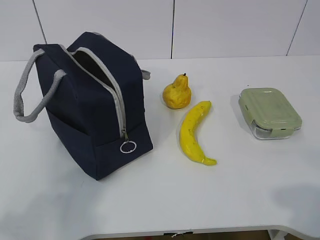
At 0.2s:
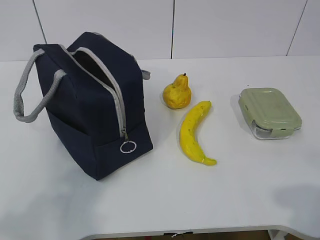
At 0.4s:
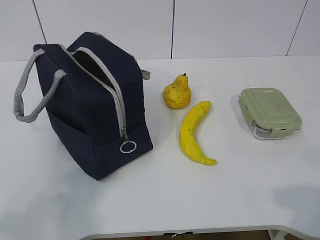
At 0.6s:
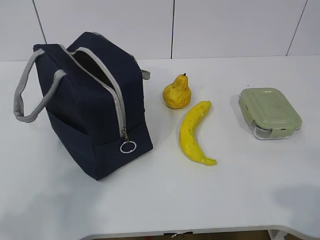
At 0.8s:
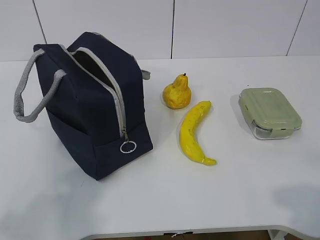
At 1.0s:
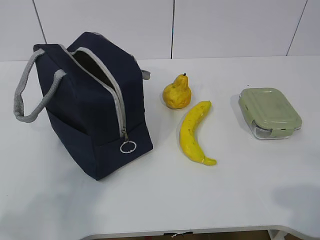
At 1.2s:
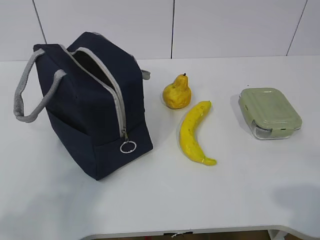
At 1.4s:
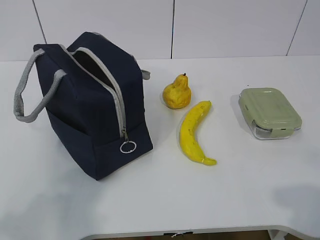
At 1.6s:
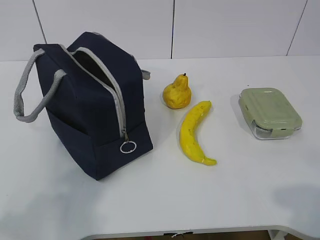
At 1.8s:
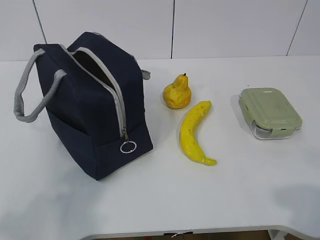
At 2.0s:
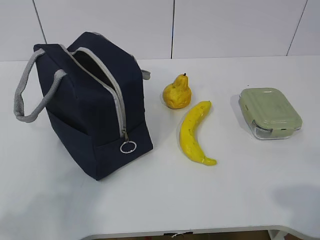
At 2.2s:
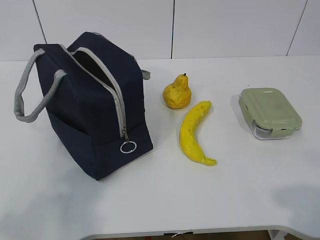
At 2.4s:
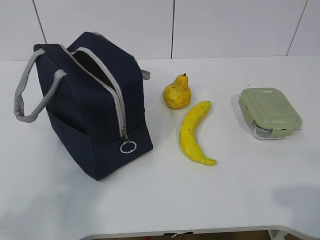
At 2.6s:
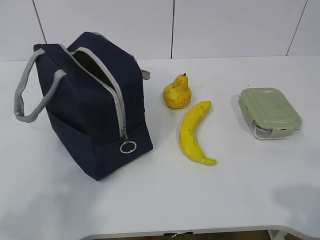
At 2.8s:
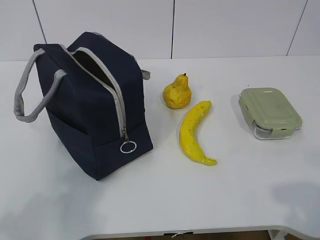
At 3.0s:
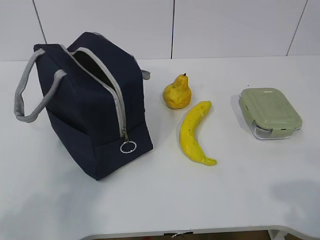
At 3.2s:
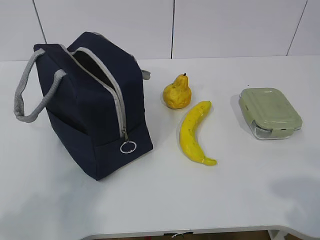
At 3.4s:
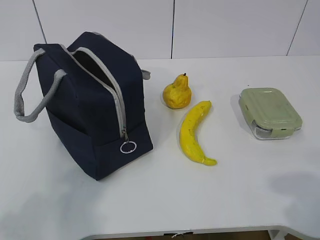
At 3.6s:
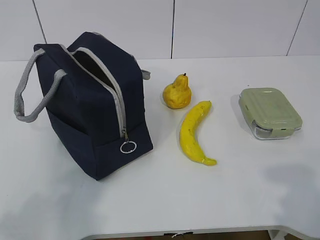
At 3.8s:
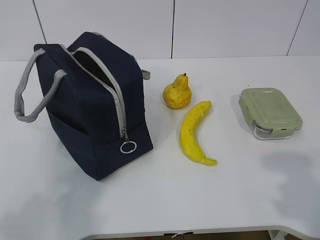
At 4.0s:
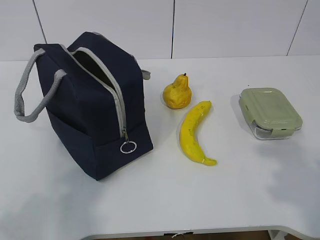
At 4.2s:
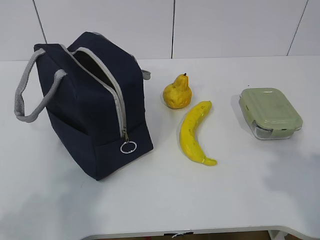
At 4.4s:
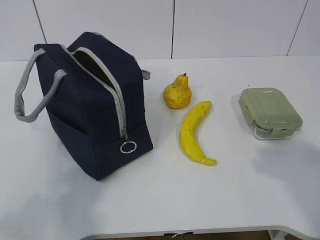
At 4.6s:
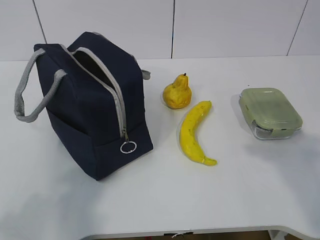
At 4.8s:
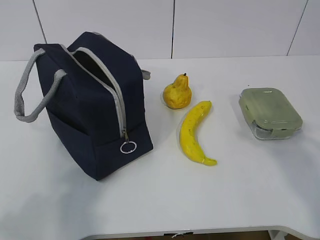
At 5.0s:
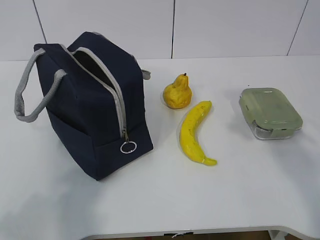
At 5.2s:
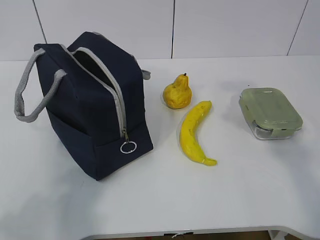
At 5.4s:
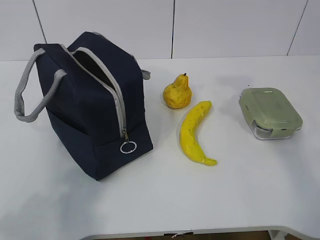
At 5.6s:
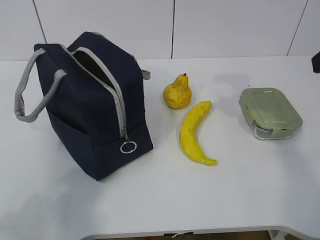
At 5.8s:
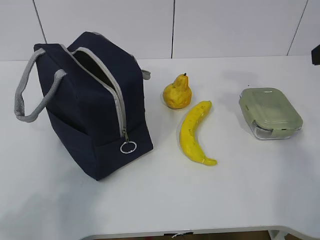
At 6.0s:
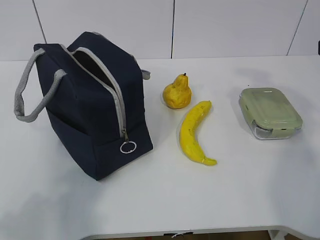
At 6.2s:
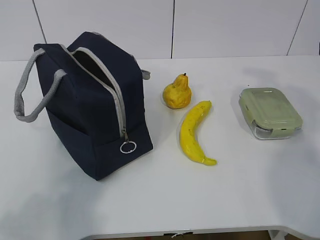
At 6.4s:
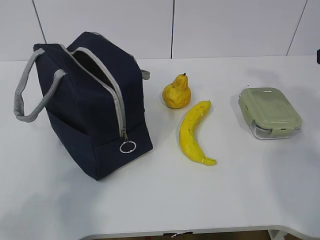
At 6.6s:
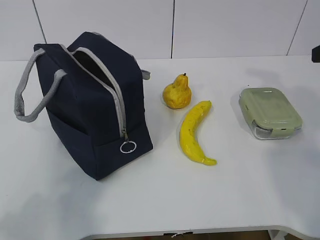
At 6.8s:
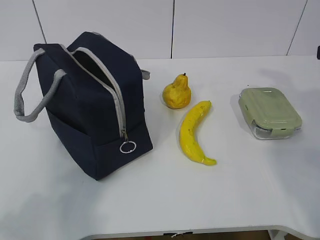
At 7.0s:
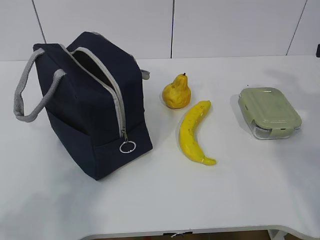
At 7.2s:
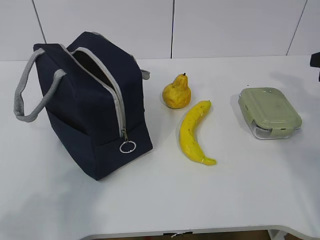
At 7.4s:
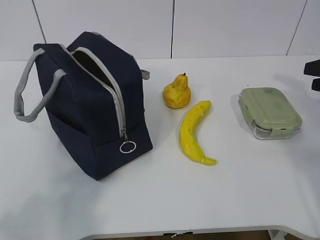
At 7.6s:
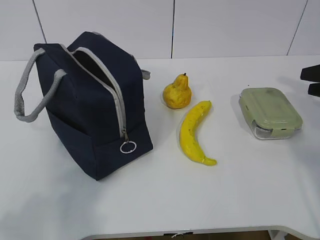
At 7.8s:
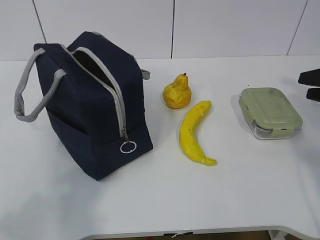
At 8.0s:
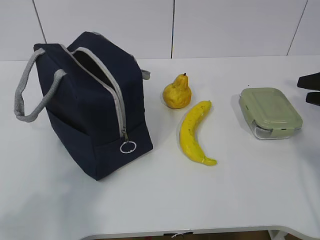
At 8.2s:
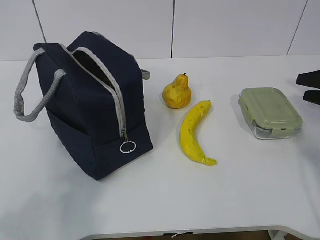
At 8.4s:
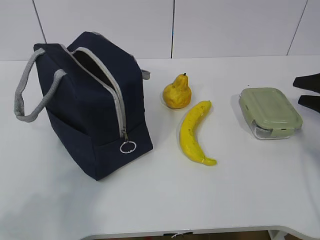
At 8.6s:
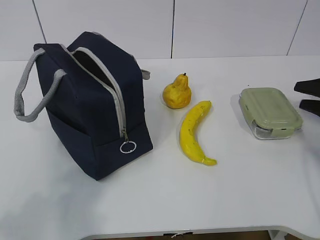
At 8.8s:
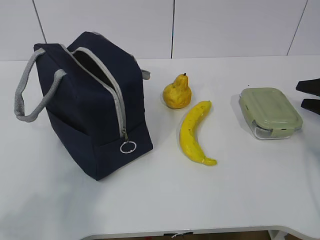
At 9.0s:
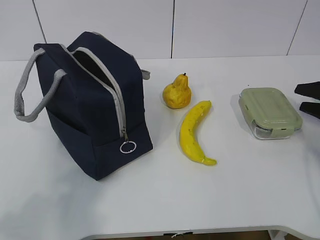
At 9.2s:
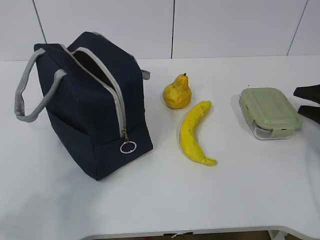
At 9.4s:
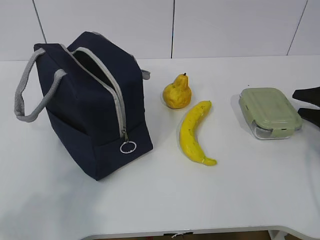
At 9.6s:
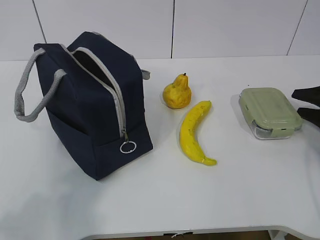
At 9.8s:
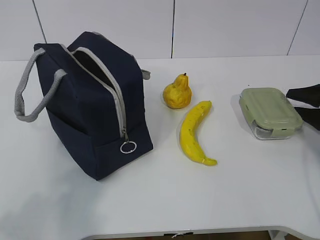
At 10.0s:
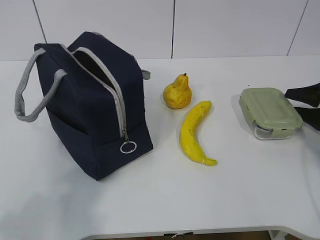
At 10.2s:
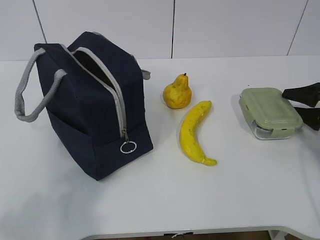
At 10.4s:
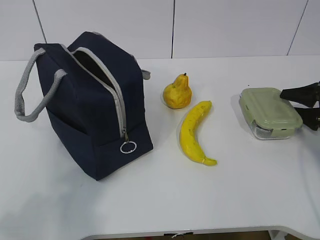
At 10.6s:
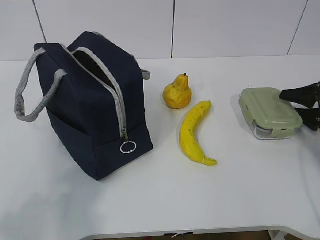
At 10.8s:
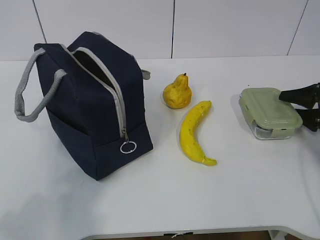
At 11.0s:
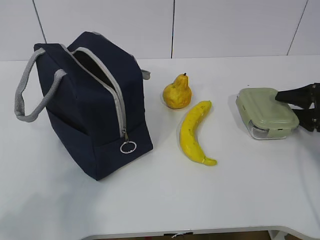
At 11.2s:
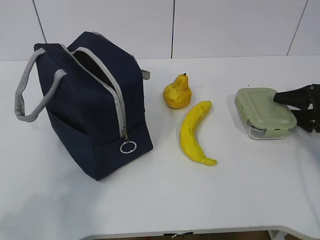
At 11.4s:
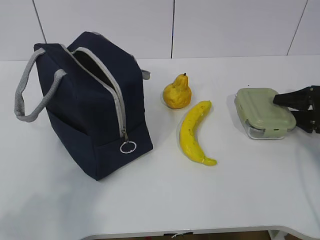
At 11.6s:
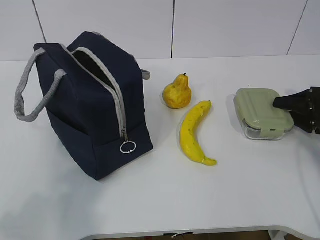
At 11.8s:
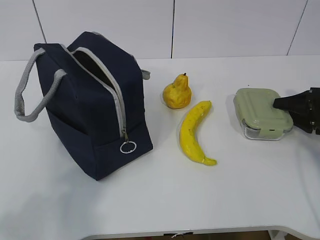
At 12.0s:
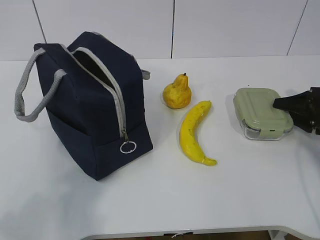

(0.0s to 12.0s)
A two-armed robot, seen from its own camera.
1.6s - 3.0s: The two grippers keep their place.
3.0s - 4.4s: The right gripper moves forward and upward, roughly 10 cm.
4.4s - 6.0s: The right gripper moves forward, some 20 cm.
6.0s - 7.6s: The right gripper travels downward, forward and to the right by about 20 cm.
7.6s - 9.0s: The right gripper is displaced downward by some 10 cm.
9.0s - 12.0s: The grippers stay close to where they were, moving slightly.

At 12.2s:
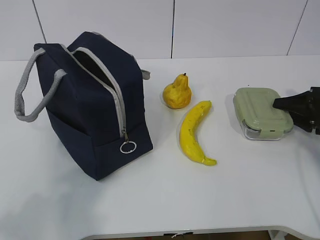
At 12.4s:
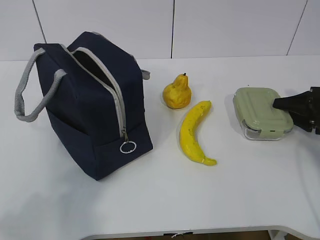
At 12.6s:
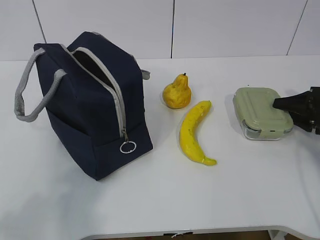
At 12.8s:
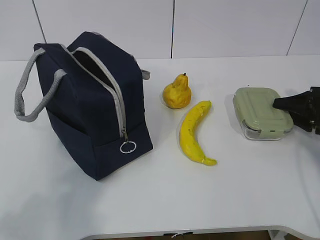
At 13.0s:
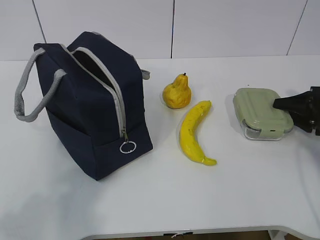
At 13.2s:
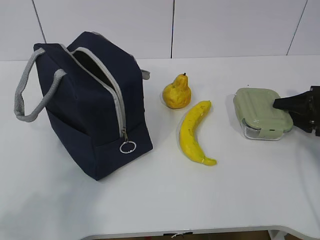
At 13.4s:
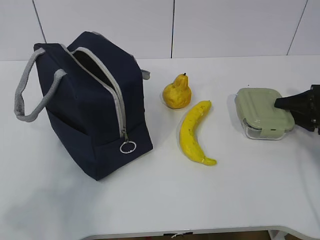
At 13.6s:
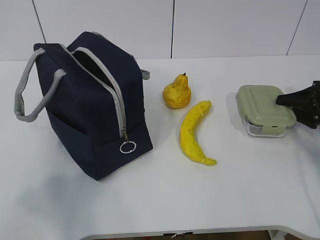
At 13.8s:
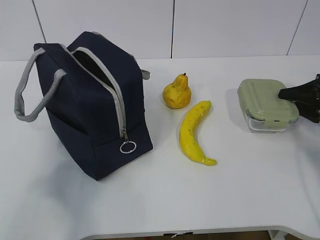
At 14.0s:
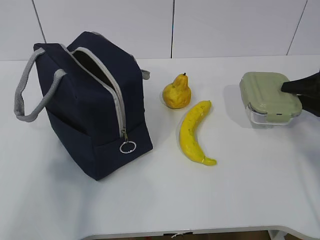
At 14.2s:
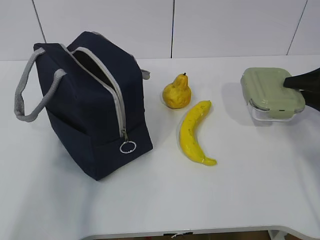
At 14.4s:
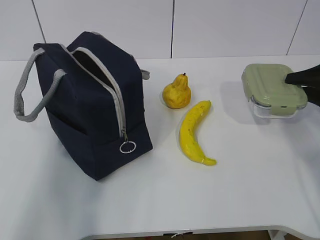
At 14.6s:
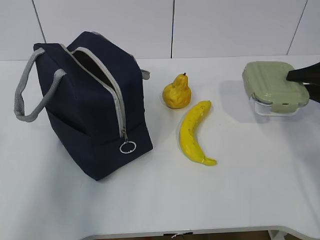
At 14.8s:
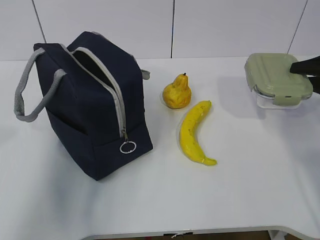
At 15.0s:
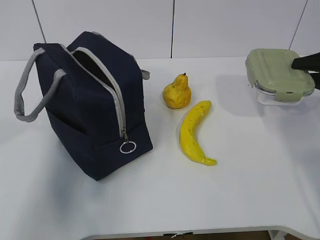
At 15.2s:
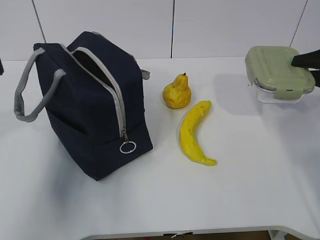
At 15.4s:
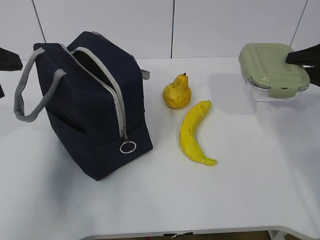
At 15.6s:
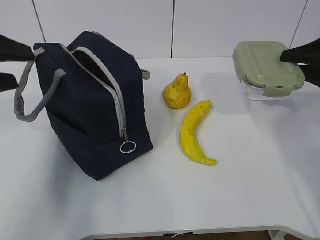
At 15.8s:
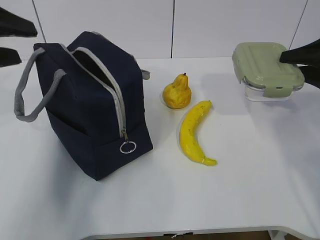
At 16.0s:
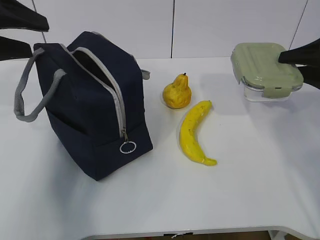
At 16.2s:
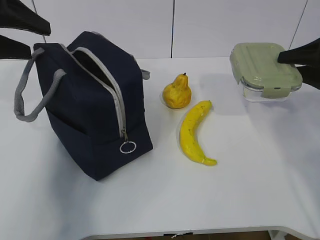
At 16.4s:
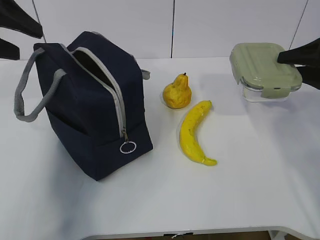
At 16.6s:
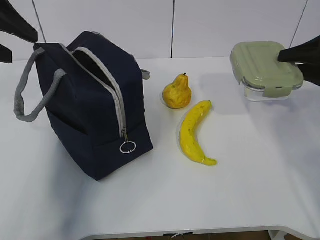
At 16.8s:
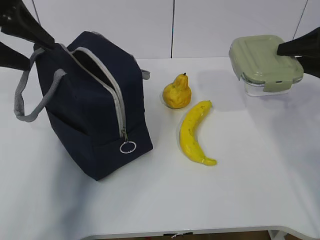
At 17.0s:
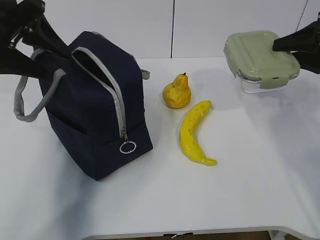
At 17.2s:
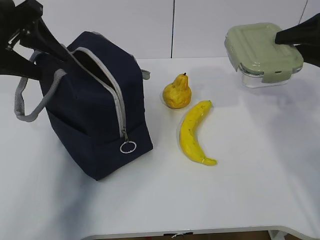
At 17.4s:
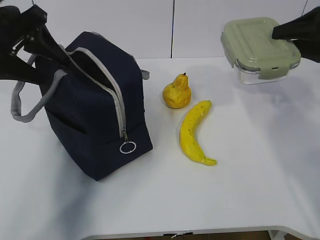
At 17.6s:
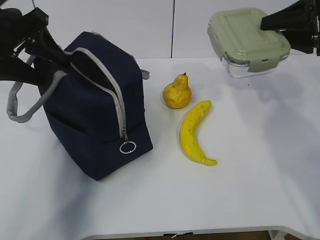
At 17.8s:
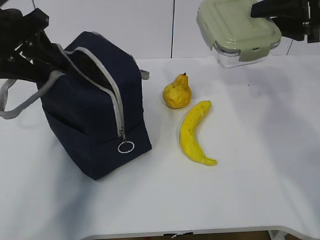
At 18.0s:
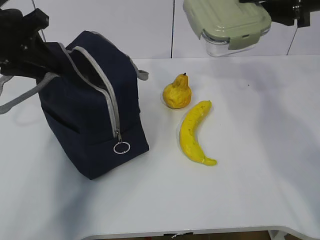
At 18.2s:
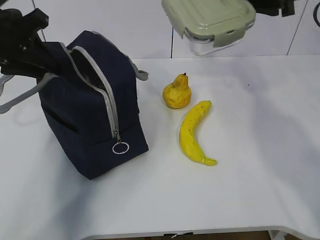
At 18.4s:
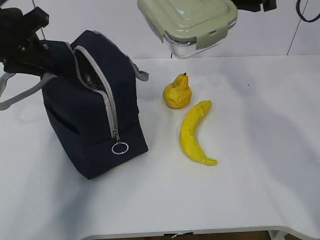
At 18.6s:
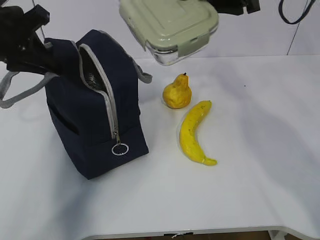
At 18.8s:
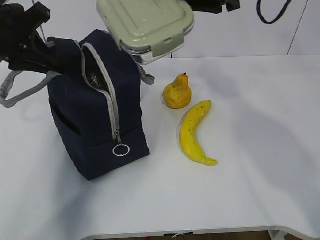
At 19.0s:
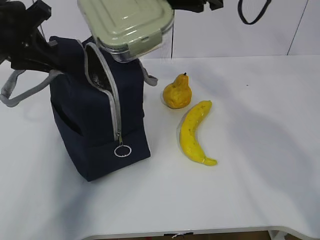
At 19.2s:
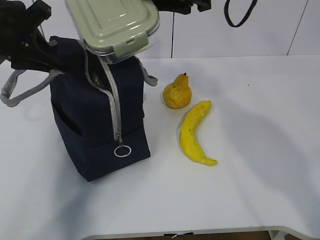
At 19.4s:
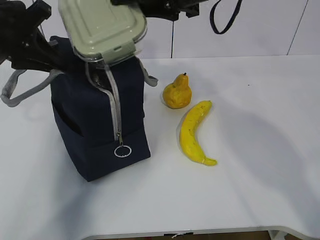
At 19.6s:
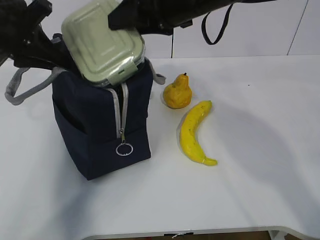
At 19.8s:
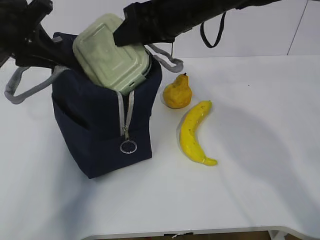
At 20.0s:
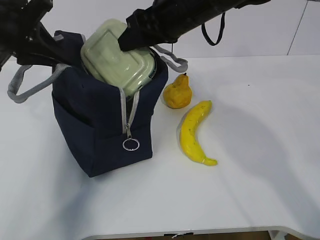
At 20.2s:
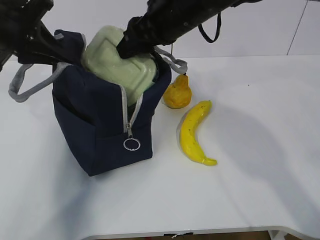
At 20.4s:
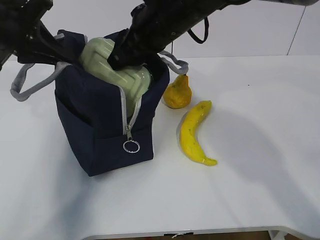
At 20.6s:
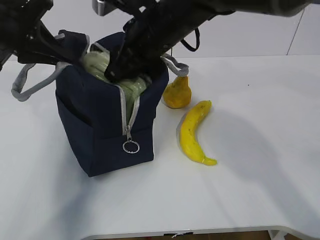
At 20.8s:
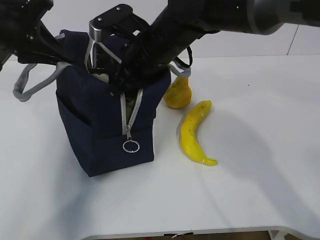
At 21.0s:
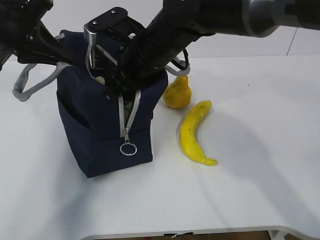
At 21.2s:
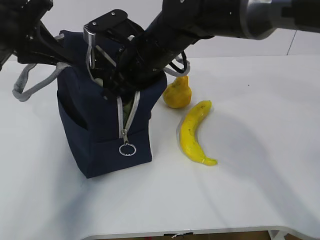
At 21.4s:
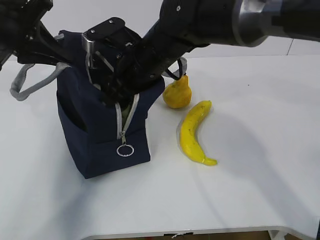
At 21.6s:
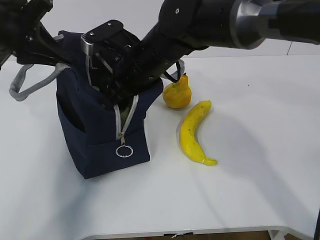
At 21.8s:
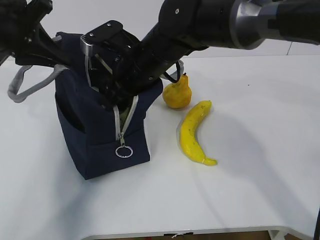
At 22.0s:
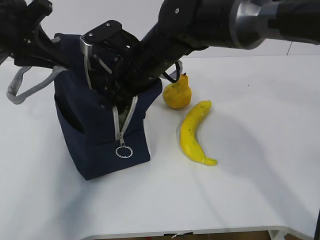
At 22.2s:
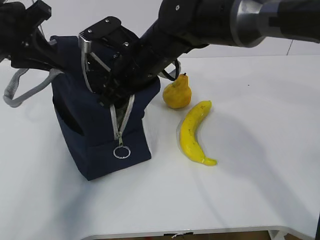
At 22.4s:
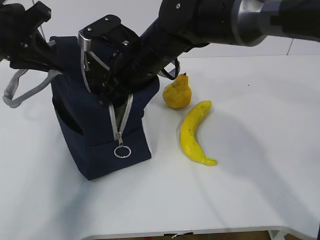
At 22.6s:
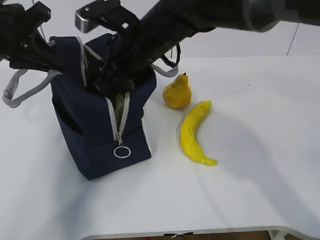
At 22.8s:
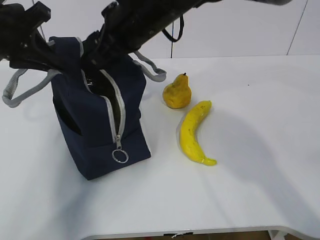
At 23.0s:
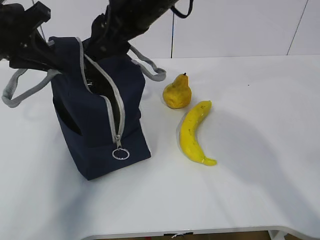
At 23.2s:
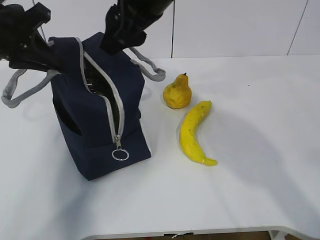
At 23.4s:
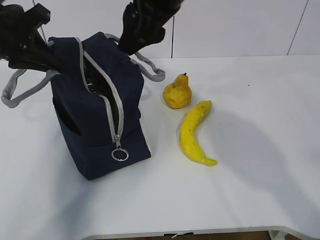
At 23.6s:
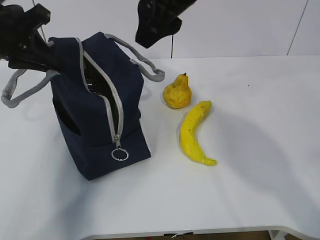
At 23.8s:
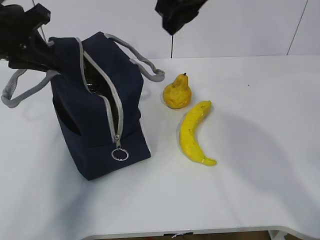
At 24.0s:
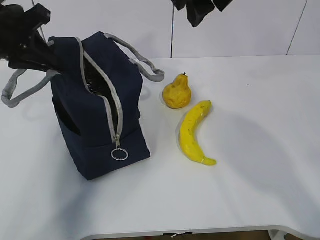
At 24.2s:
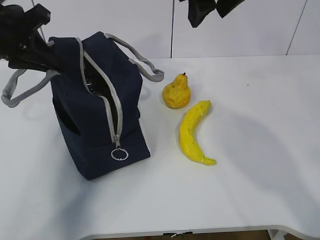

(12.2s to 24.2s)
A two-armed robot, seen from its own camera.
Step, 12.2s - 16.2s: Grab the lunch bag with your left hand.
Step, 16.4s - 18.4s: Place it into the bag with your right hand.
Step, 18.6s - 24.2s: Grab the banana with your right hand.
13.8s - 15.2s: The right gripper heads upward, covering about 10 cm; the left gripper heads forward, covering roughly 15 cm.
15.2s - 16.6s: The left gripper moves forward, some 15 cm.
16.6s - 18.2s: The right gripper is displaced upward and to the left by roughly 15 cm. The left gripper moves some 5 cm, and closes.
18.2s - 19.8s: The right gripper is displaced to the left by some 15 cm.
19.8s - 21.2s: The right gripper is displaced downward and to the left by roughly 10 cm.
21.2s - 22.6s: The grippers stay close to where they were, moving slightly.
22.6s - 24.2s: The right gripper goes approximately 15 cm upward and to the right.
